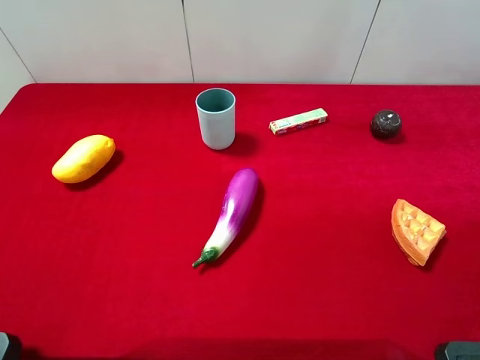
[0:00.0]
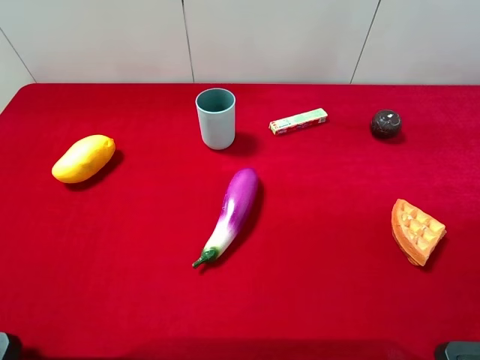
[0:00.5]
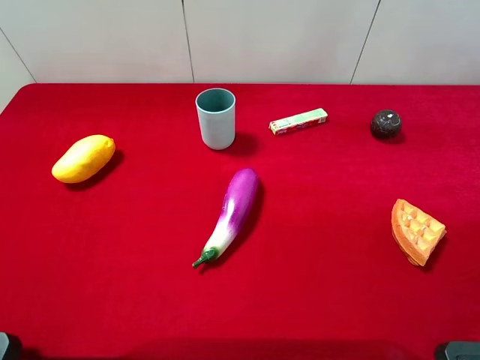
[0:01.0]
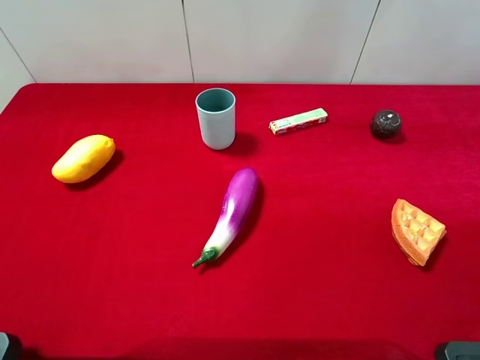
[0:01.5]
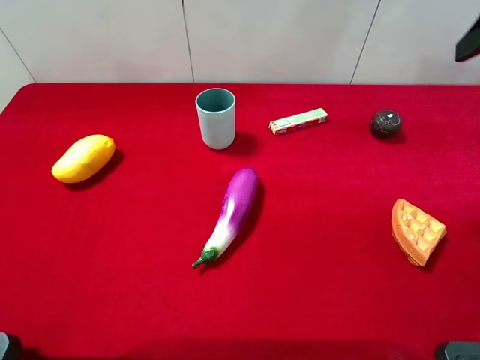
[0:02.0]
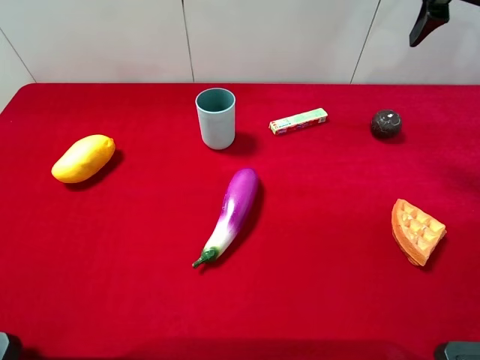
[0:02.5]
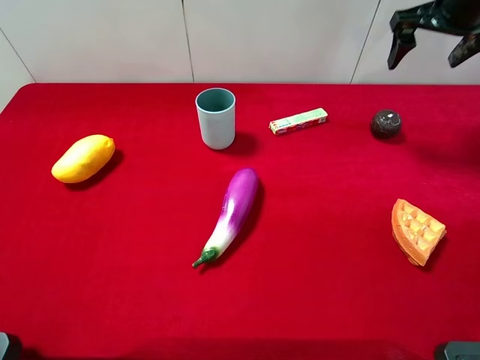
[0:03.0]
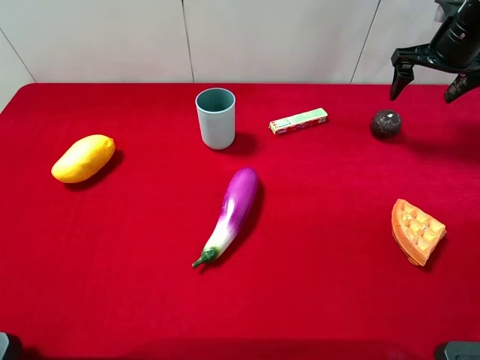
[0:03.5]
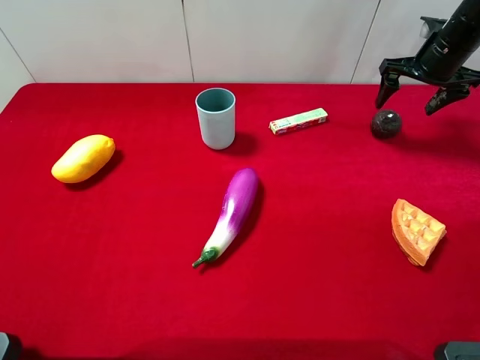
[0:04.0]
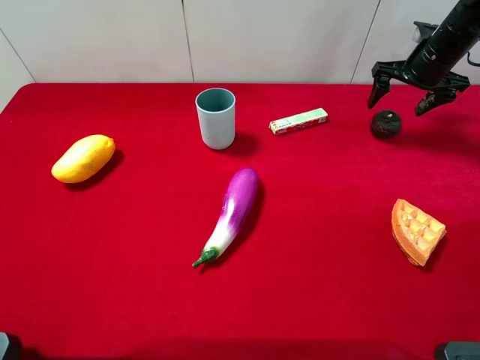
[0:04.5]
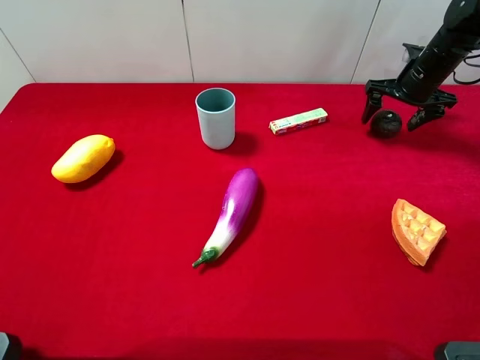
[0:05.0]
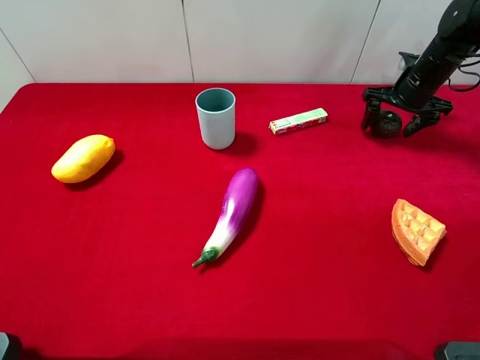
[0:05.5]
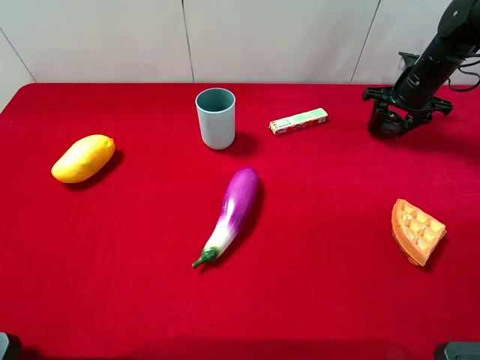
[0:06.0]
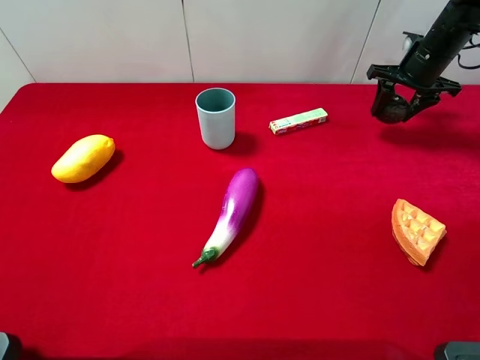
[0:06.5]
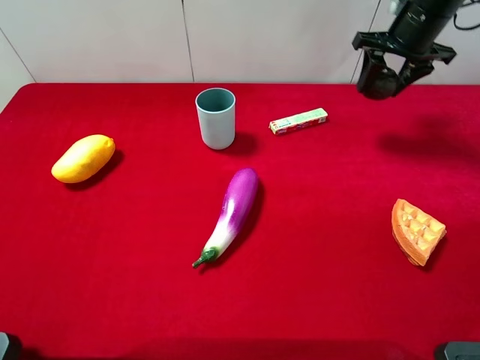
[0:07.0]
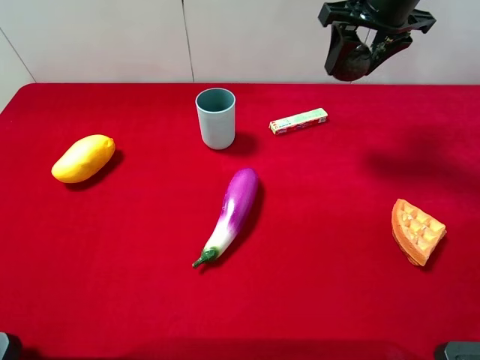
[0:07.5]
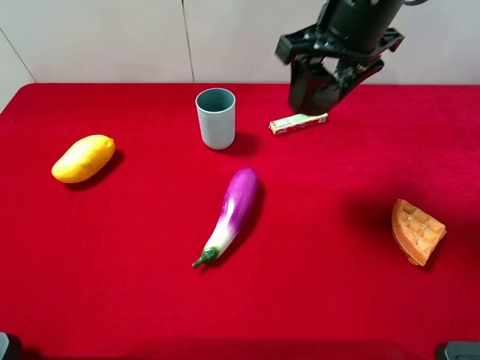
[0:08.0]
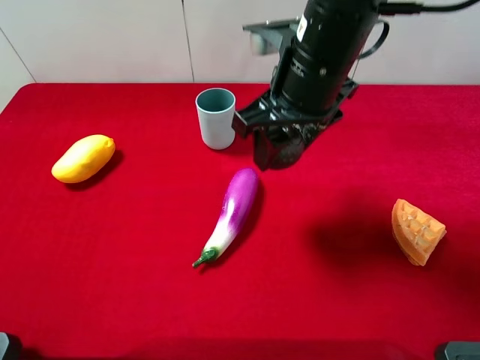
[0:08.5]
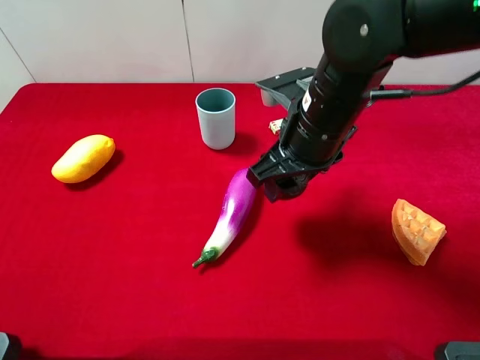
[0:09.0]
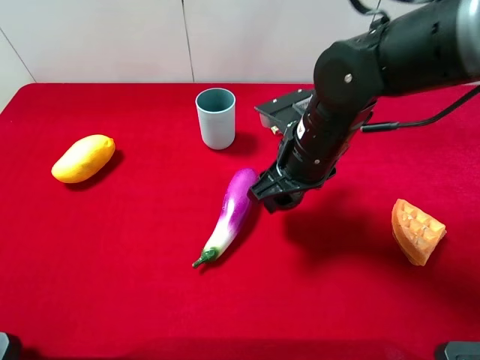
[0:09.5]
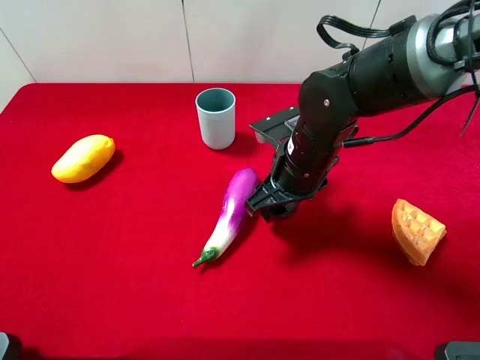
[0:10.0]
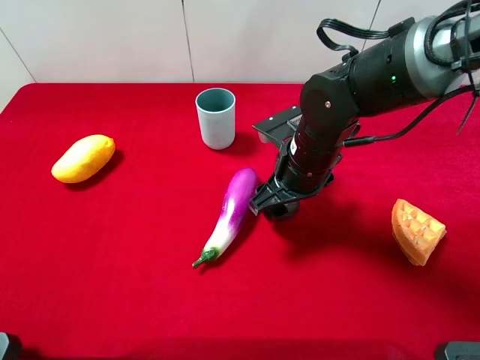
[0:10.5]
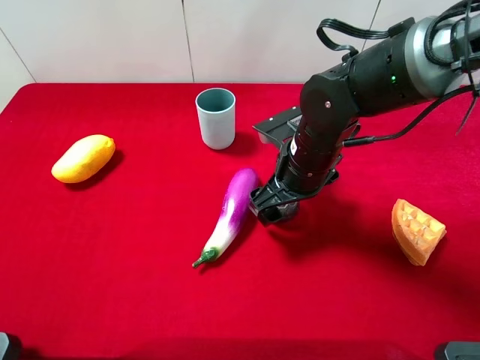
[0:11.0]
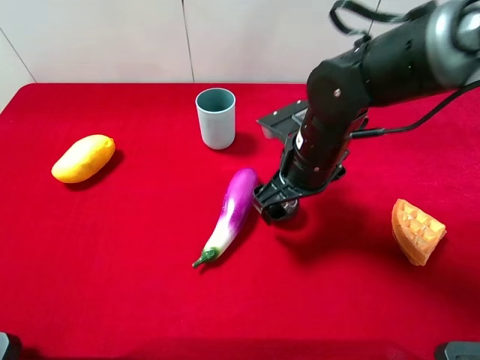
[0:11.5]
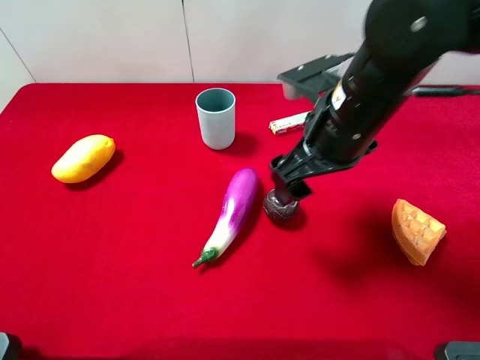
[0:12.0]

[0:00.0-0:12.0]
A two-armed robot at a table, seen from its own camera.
Task of the whole recording: the gripper move the object.
Step, 0:00.0 to 0:05.5: Grasp the mangosteen with the right gripper.
Step, 0:06.0 to 0:11.5: Place the mangosteen on the table with the right gripper.
0:02.0 to 0:04.0: The right gripper shifts approximately 25 cm forward and downward.
0:04.0 to 0:06.0: The right gripper goes some 5 cm downward, and closes its fingers.
0:06.0 to 0:08.0: The right gripper is displaced to the left, upward and backward by roughly 30 cm.
0:08.0 to 0:10.0: The right gripper shifts roughly 15 cm downward.
0:10.0 to 0:12.0: The right gripper heads upward, covering approximately 10 cm, and opens its fingers.

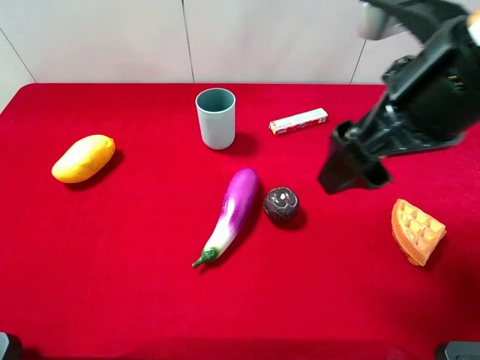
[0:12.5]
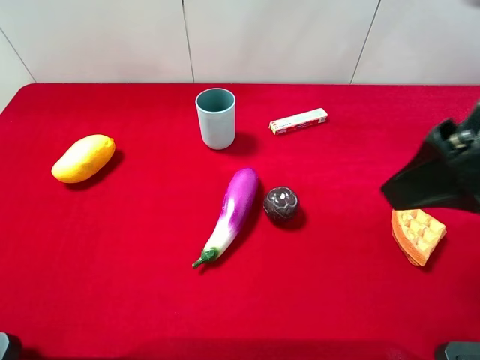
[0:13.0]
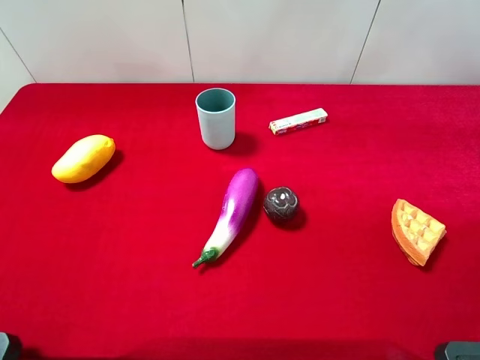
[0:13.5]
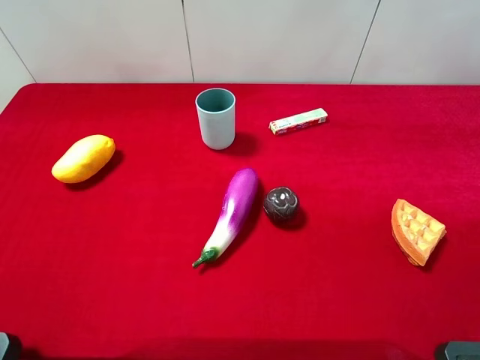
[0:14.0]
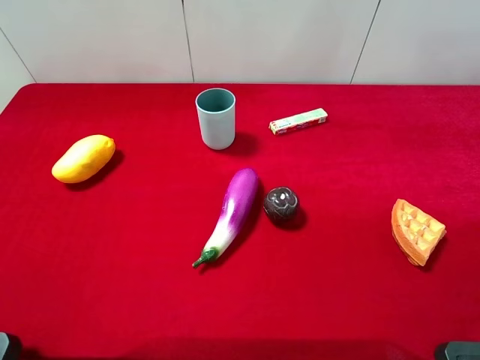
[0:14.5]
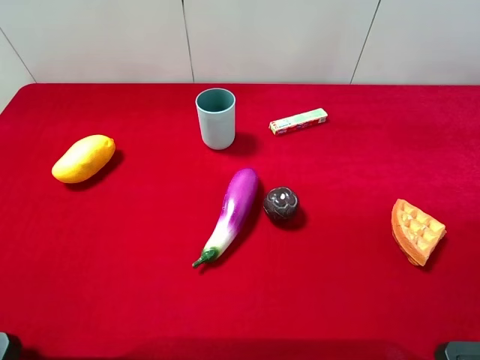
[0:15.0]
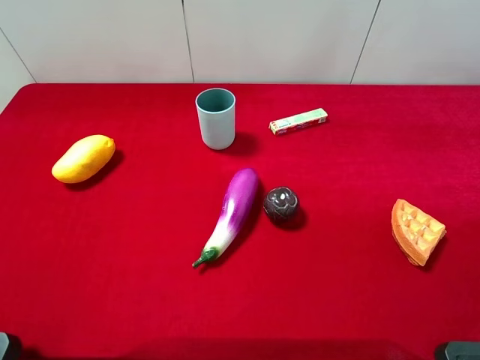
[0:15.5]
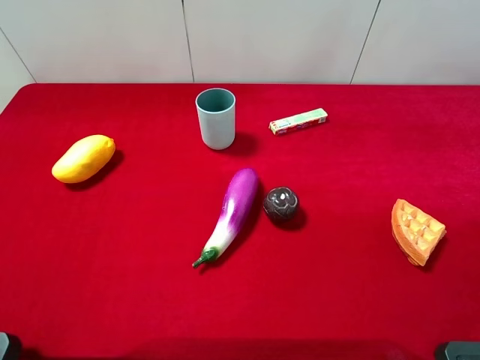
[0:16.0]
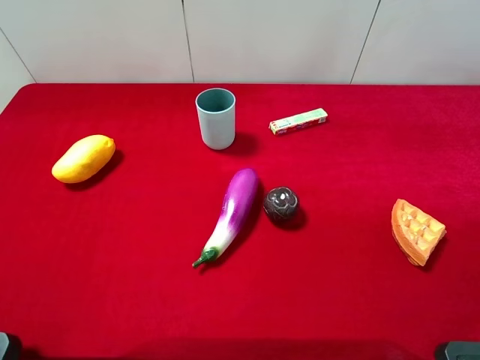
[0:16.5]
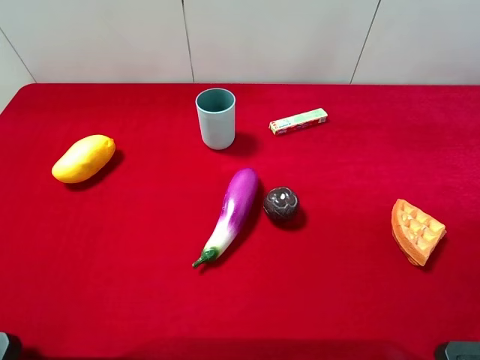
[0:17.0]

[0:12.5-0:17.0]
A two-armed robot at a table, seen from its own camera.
Task of the whole recording: the gripper move the object.
0:12.5 to 0:14.5: The right gripper moves to the right and backward, about 20 cm.
